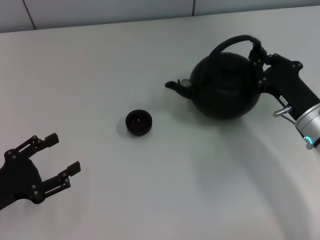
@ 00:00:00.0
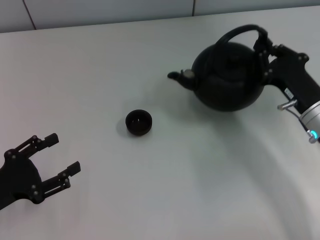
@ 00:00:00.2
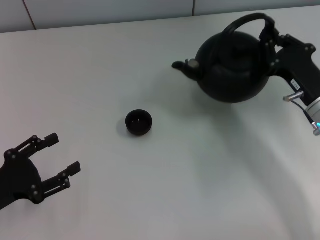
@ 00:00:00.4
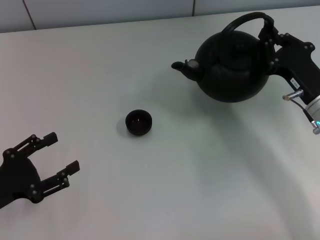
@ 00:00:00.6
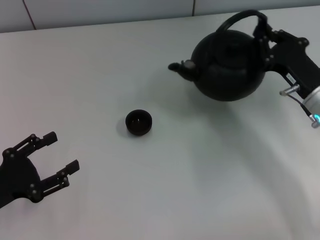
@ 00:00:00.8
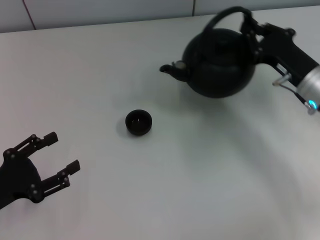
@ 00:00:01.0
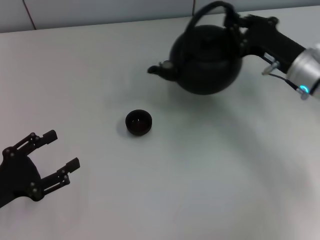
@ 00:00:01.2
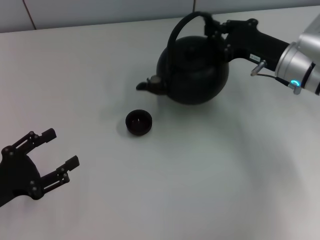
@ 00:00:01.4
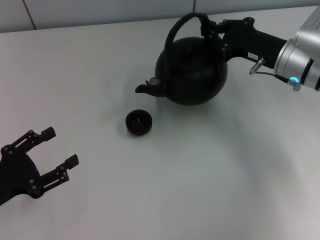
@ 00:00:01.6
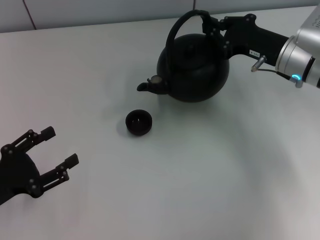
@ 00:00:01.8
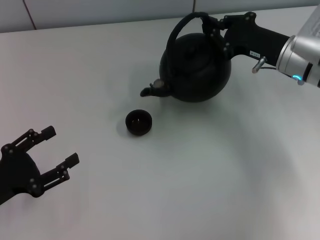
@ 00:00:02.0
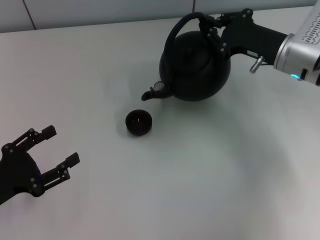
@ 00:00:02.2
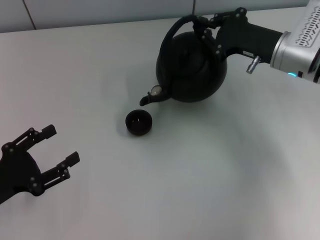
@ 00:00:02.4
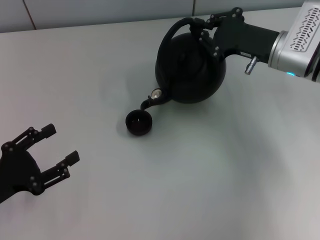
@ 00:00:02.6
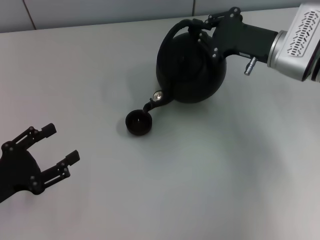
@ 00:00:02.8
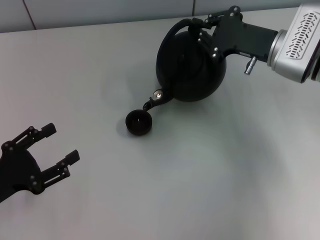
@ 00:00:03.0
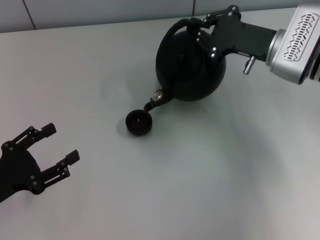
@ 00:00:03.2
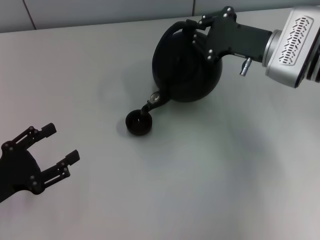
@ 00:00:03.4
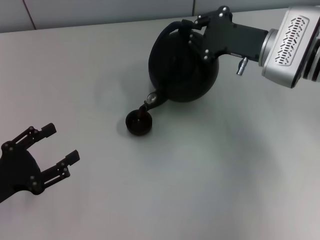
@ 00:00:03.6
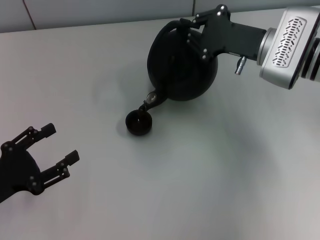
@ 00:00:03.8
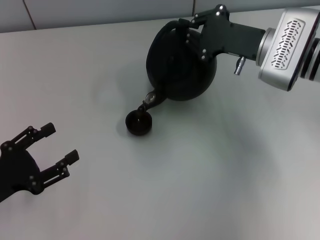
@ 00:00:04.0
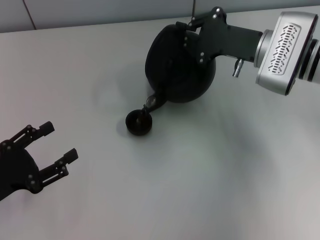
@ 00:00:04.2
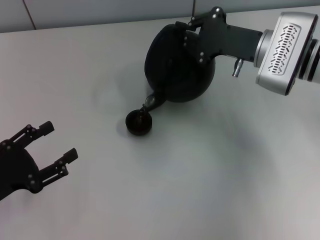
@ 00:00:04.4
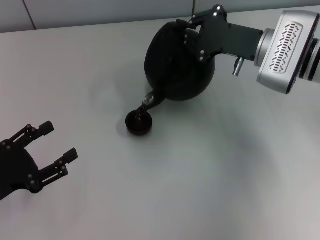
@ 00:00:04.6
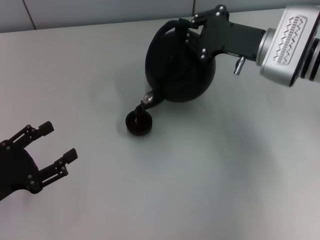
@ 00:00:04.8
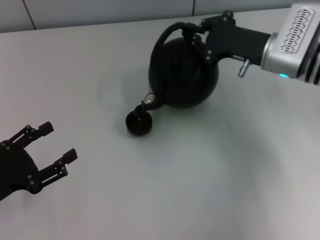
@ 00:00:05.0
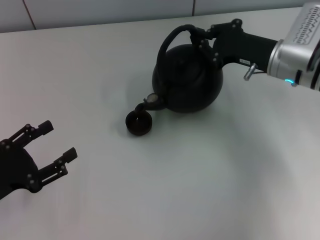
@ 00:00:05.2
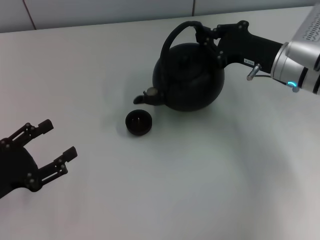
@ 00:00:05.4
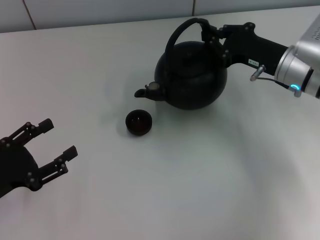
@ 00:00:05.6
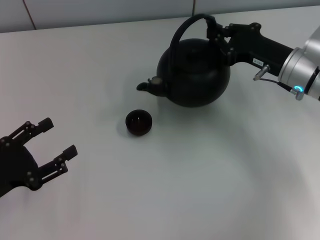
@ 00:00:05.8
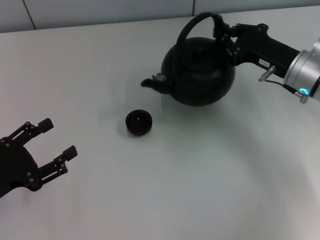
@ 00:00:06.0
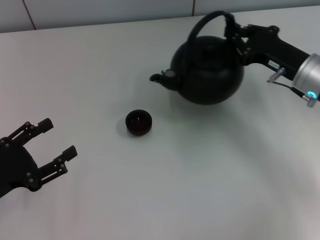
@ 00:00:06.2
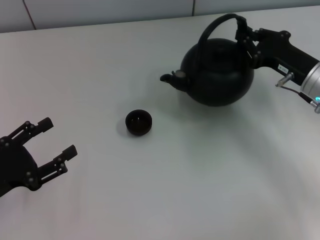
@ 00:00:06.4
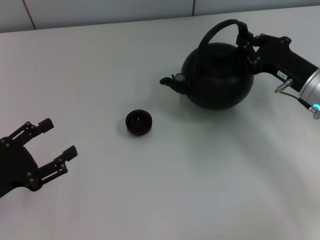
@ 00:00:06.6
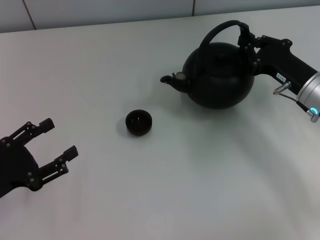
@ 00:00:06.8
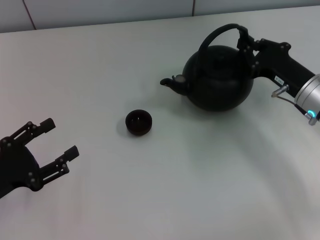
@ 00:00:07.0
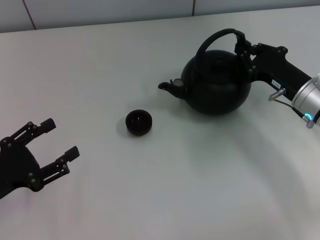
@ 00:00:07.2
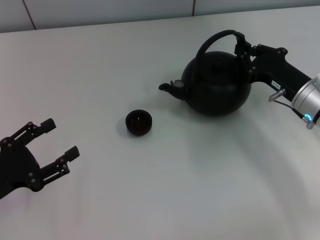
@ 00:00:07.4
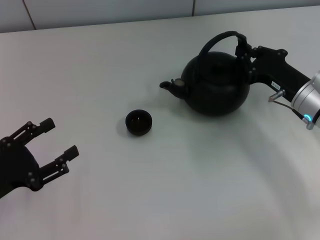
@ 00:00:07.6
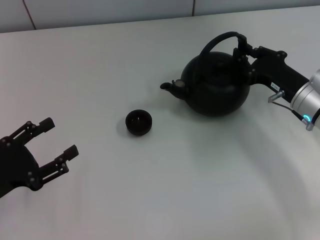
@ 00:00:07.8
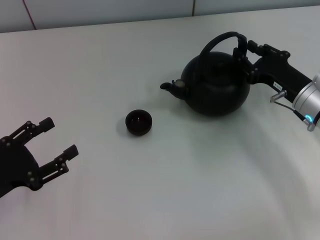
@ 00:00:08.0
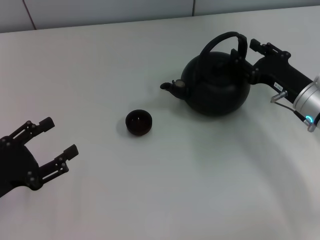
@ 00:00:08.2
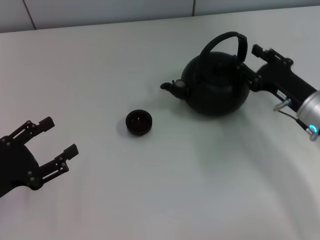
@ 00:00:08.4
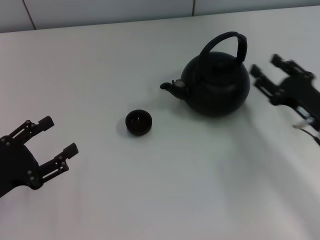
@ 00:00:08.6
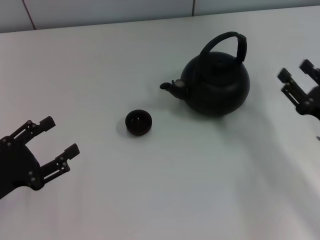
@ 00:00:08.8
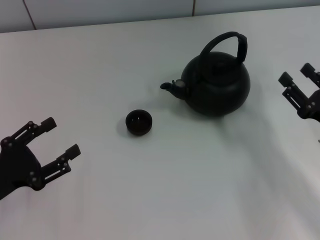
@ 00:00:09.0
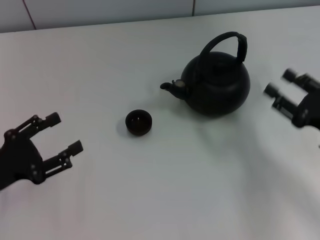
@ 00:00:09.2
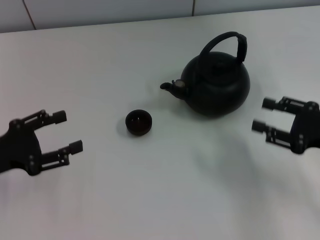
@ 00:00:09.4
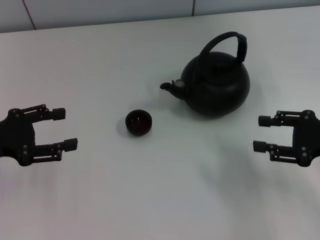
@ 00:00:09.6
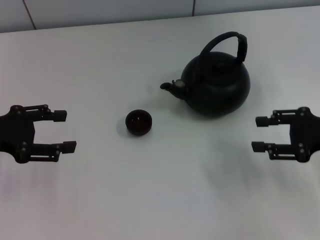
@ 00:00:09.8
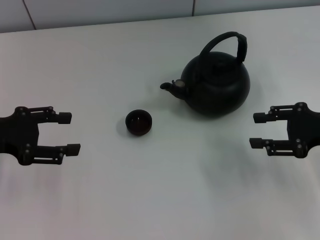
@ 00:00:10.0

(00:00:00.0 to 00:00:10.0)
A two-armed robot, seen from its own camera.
Task of the whole recording: Grasp the handle of the teapot with one hand and pour tea into the teacup.
Step, 00:00:05.6 - 00:00:08.4: Put down the teapot with the right gripper.
00:00:00.0 - 00:00:01.4: The right gripper goes about 10 cm forward and upward.
00:00:02.8 - 00:00:04.2: There are only small adjustments of the grippers.
00:00:04.2 - 00:00:05.8: The right gripper moves roughly 5 cm.
00:00:05.8 - 00:00:07.2: The right gripper changes place by about 5 cm.
00:00:07.2 - 00:00:08.6: The right gripper shifts about 5 cm backward, and opens.
00:00:08.6 - 00:00:10.0: The right gripper heads upward, covering approximately 5 cm, while the left gripper is displaced forward and upward by about 10 cm.

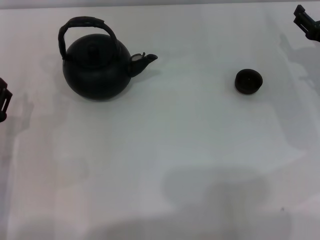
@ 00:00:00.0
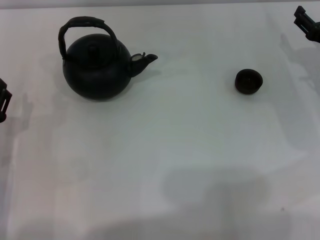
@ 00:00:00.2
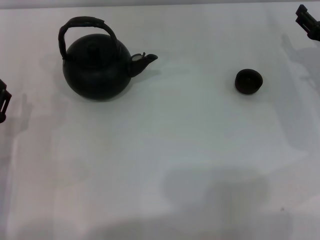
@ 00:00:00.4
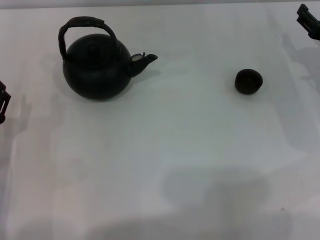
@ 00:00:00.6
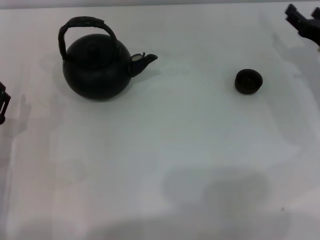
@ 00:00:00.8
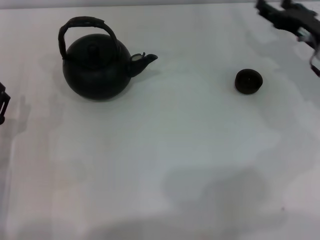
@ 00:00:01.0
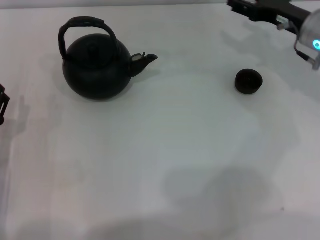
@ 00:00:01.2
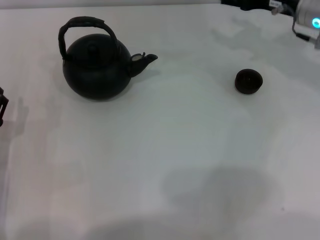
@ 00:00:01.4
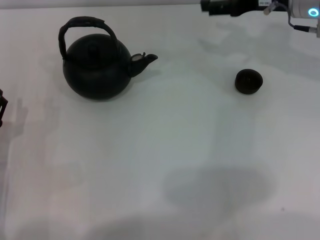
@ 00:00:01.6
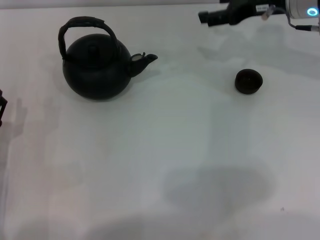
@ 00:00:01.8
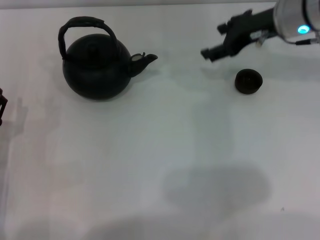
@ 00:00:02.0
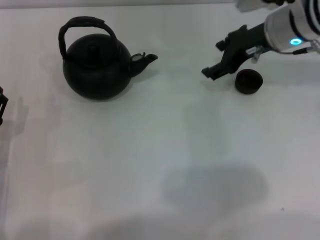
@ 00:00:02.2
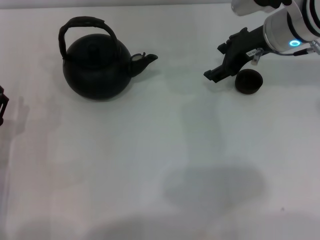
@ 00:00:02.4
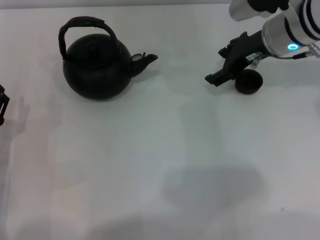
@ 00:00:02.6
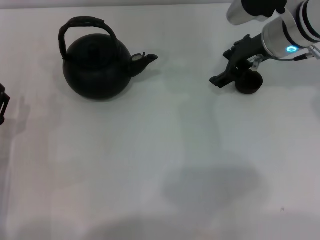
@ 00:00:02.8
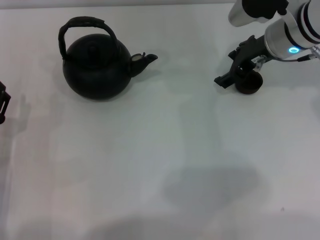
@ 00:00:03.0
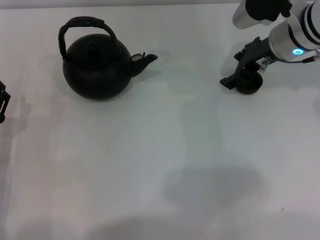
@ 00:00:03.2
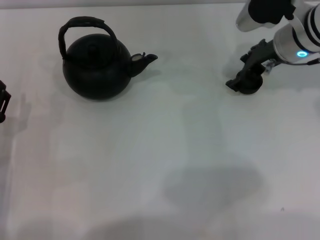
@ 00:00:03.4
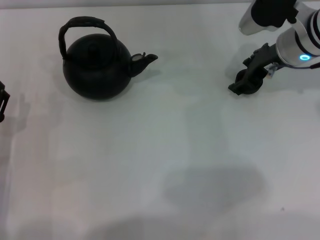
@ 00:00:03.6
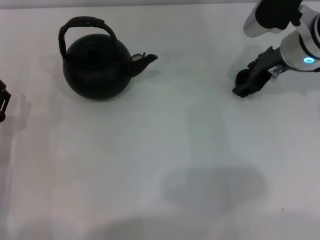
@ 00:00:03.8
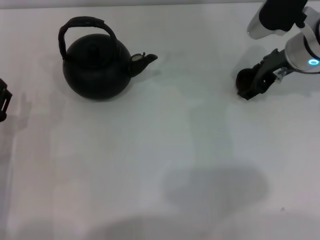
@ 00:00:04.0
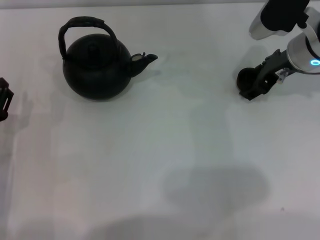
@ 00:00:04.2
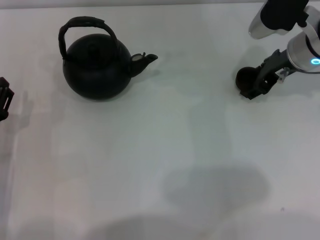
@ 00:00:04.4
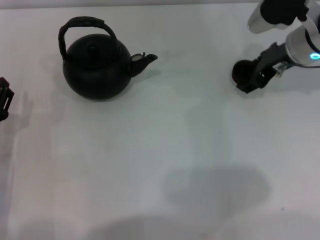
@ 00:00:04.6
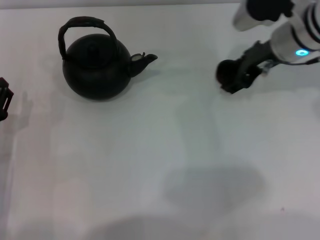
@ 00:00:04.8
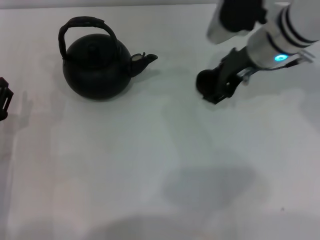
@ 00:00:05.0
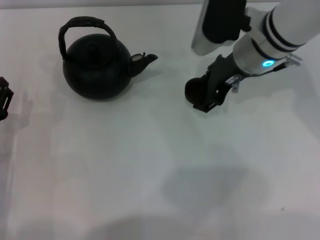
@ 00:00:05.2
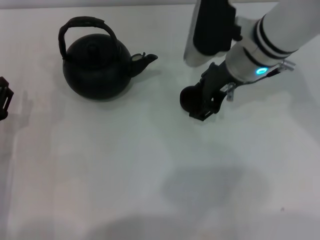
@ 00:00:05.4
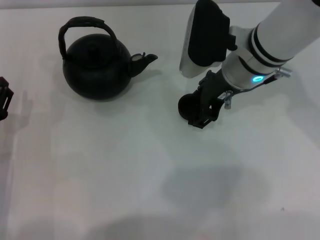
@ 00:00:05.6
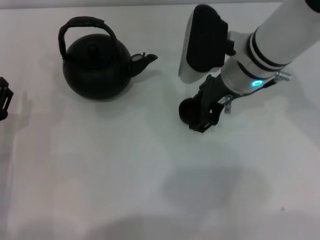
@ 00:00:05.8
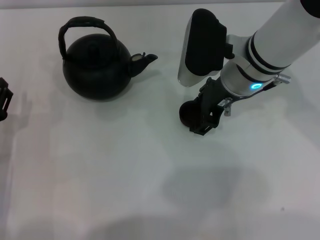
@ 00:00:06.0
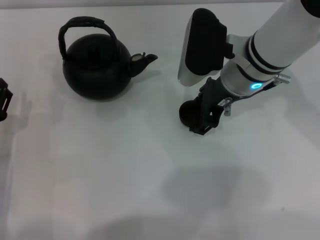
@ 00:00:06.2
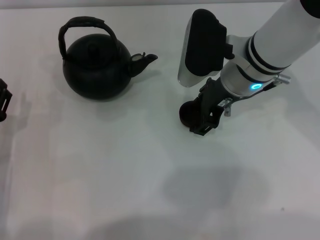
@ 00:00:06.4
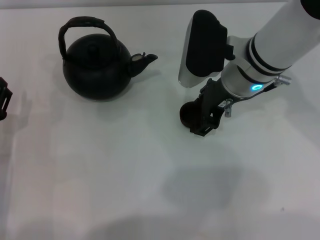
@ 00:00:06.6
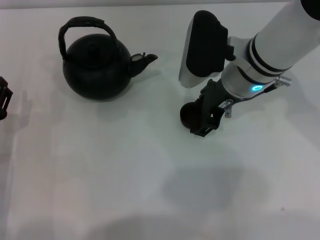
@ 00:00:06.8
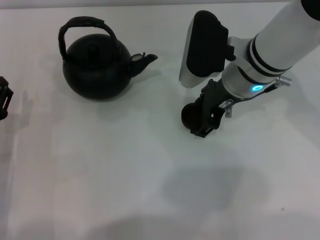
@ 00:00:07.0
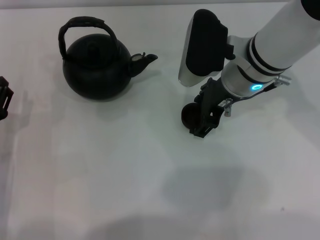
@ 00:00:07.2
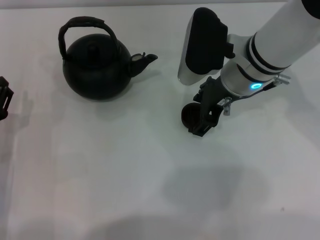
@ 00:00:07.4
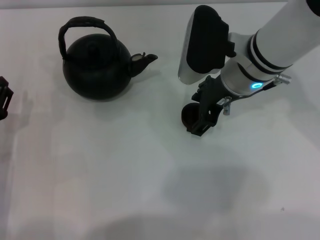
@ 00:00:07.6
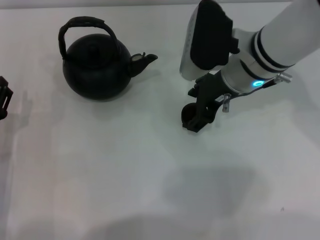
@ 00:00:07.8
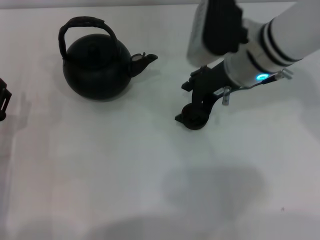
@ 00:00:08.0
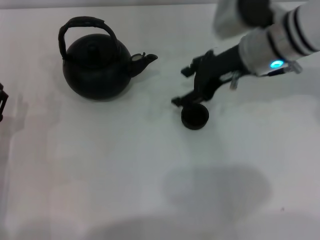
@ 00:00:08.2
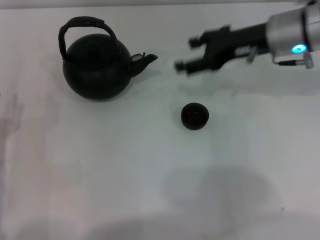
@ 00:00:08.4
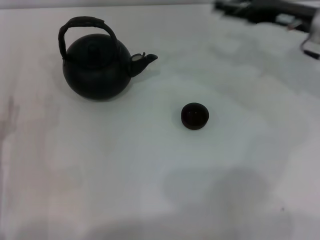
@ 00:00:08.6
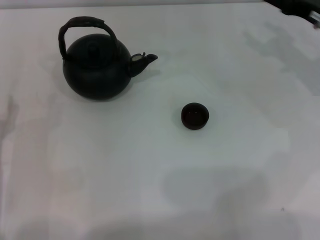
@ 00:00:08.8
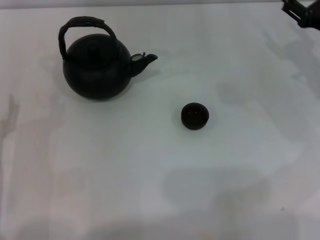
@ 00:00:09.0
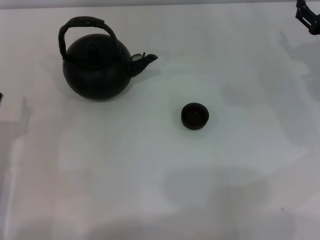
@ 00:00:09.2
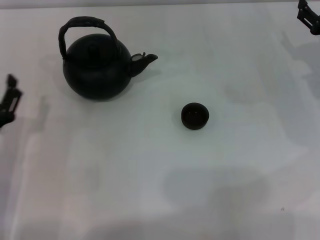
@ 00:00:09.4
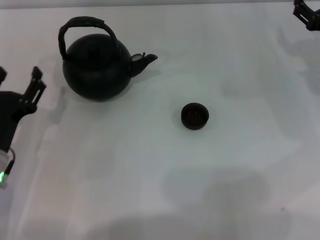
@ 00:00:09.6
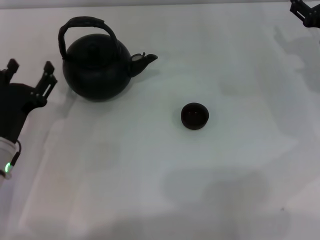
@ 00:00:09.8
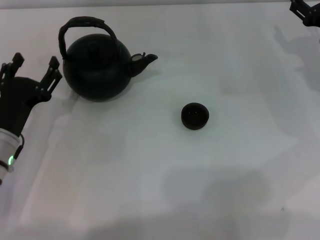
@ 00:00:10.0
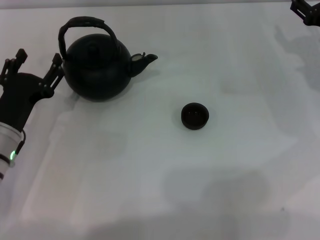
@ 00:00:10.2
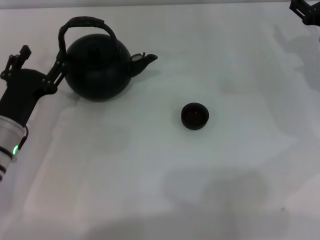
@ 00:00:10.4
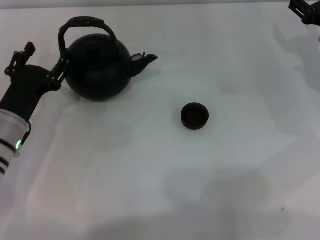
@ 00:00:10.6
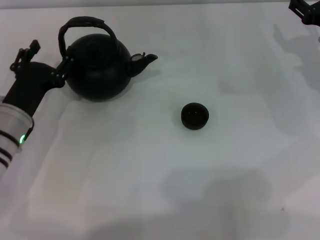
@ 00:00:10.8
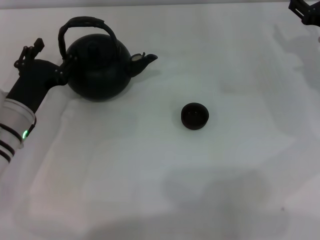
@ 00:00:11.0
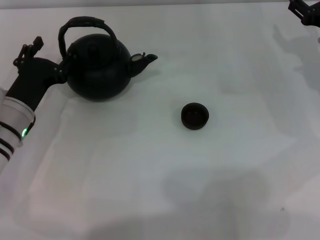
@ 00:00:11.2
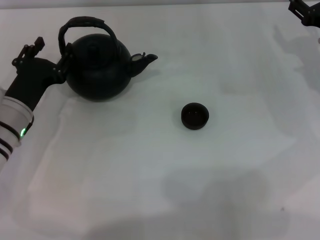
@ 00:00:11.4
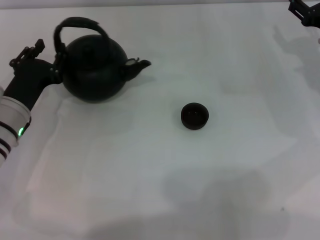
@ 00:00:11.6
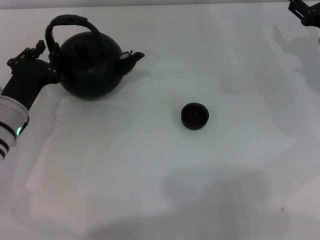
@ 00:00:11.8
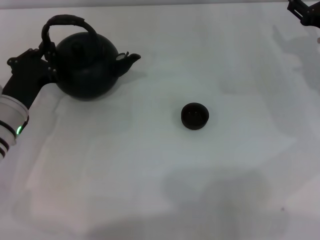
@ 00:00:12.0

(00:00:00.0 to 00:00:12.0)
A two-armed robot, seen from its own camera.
Task of the whole recording: Grasp the handle of the teapot with one hand and pour tea into the teacup.
Step, 00:00:00.0 - 00:00:04.8: Pick up the teacup with the right gripper.
Step, 00:00:05.0 - 00:00:07.8: Place the teacup in the center of view with the right gripper.
00:00:00.0 - 00:00:01.6: The right gripper is displaced upward, to the left and forward by approximately 15 cm.
00:00:03.0 - 00:00:04.4: There are only small adjustments of the grippers.
00:00:04.4 - 00:00:06.0: The right gripper is displaced to the left by about 10 cm, and closes up.
00:00:06.0 - 00:00:07.6: The right gripper opens.
00:00:07.6 - 00:00:09.0: The right gripper shifts approximately 20 cm to the right.
00:00:09.0 - 00:00:10.4: The left gripper heads forward, covering roughly 5 cm.
00:00:10.4 - 00:00:12.0: The left gripper closes up.
